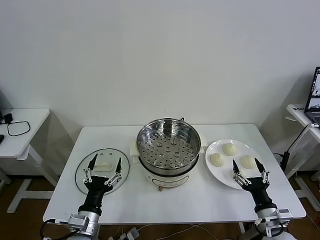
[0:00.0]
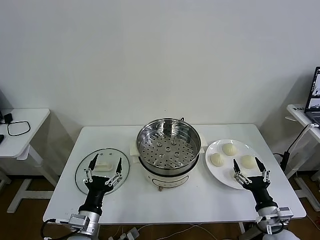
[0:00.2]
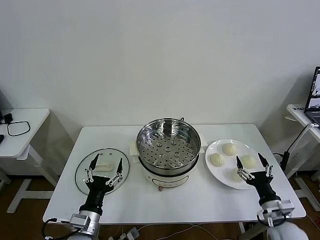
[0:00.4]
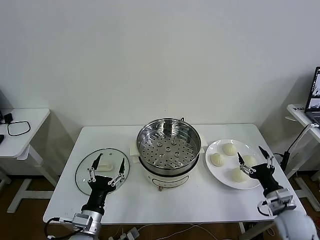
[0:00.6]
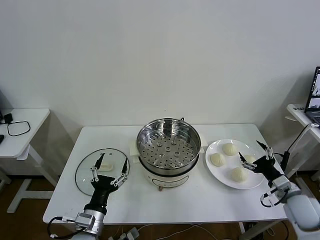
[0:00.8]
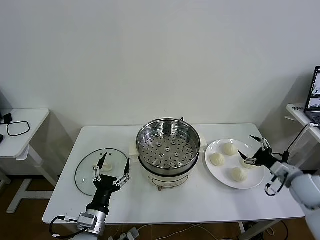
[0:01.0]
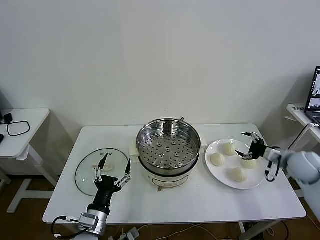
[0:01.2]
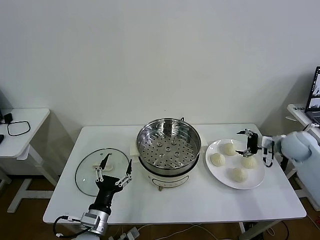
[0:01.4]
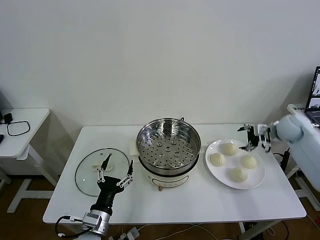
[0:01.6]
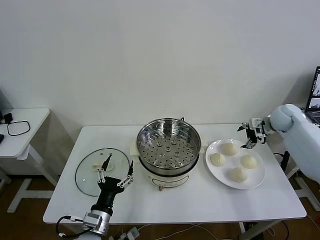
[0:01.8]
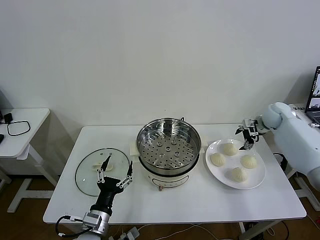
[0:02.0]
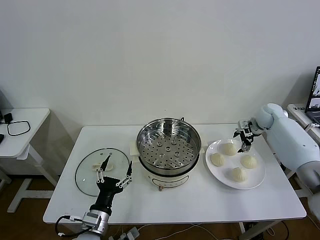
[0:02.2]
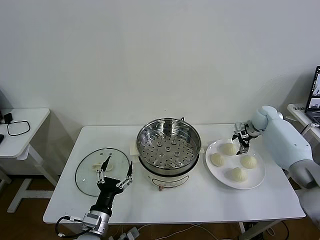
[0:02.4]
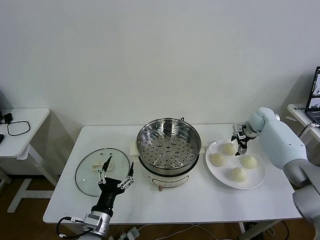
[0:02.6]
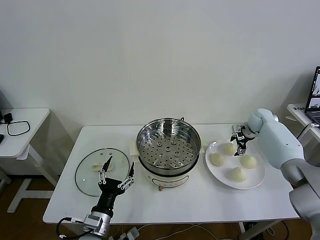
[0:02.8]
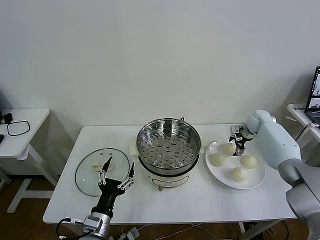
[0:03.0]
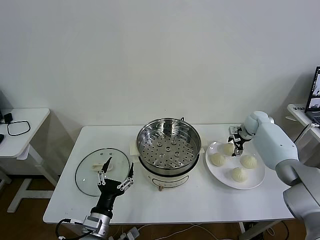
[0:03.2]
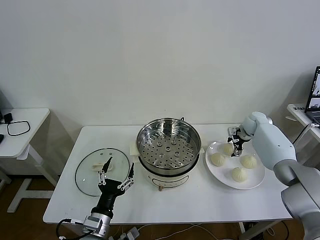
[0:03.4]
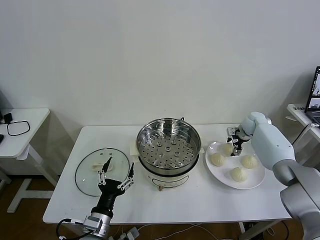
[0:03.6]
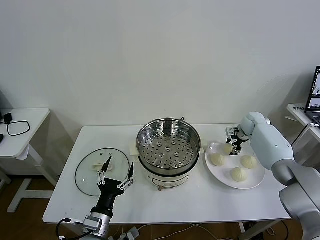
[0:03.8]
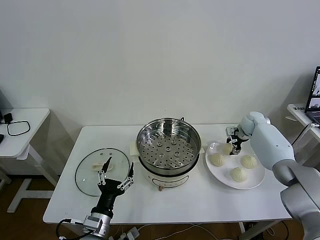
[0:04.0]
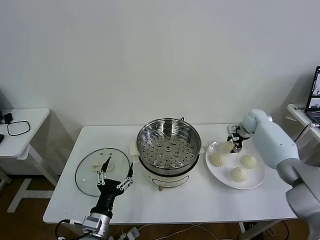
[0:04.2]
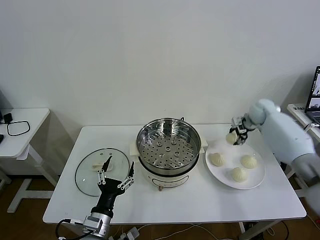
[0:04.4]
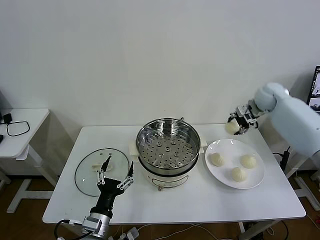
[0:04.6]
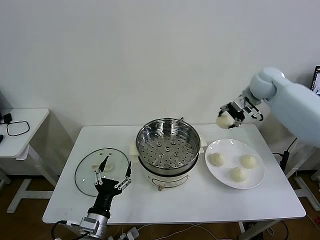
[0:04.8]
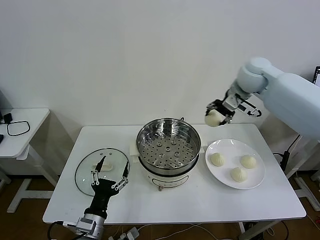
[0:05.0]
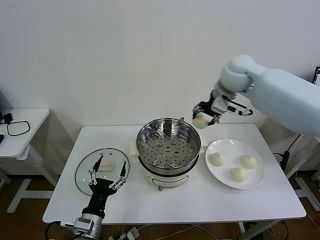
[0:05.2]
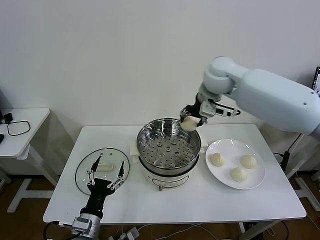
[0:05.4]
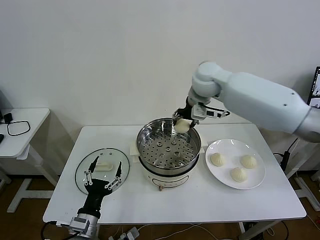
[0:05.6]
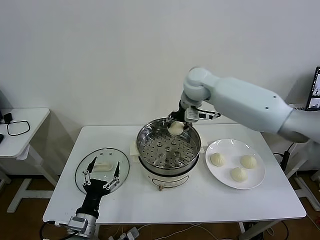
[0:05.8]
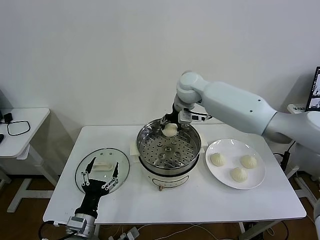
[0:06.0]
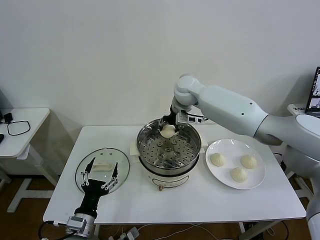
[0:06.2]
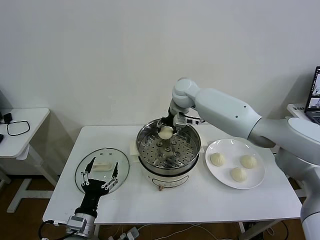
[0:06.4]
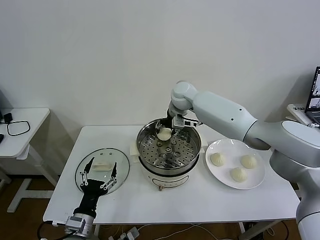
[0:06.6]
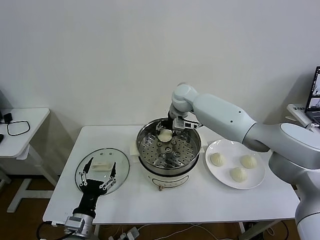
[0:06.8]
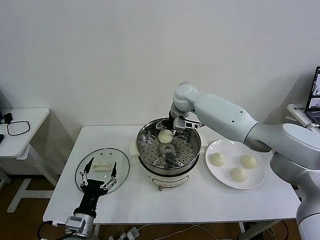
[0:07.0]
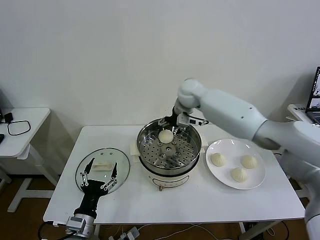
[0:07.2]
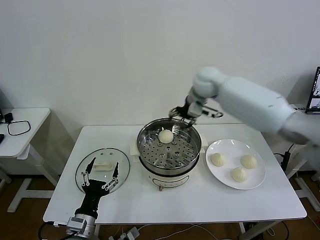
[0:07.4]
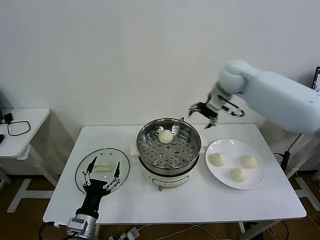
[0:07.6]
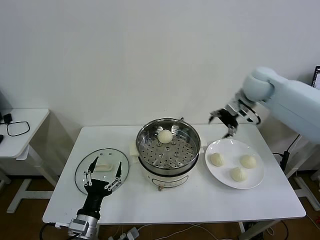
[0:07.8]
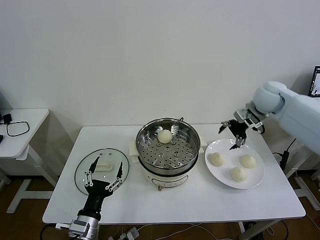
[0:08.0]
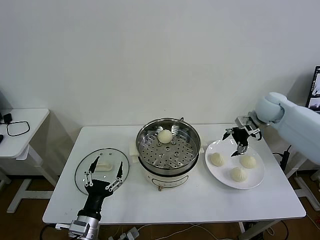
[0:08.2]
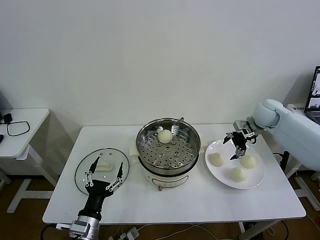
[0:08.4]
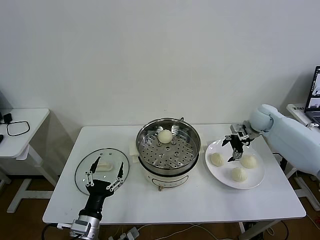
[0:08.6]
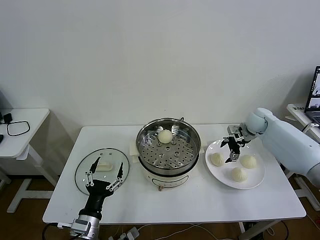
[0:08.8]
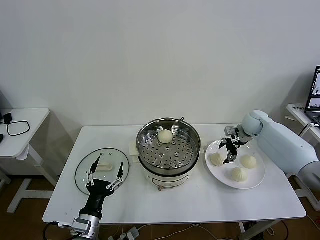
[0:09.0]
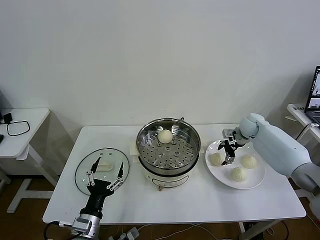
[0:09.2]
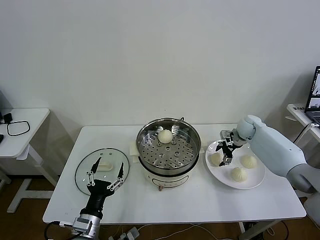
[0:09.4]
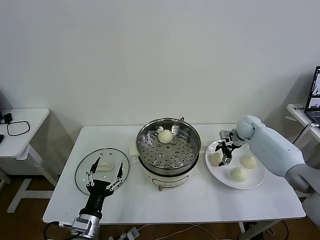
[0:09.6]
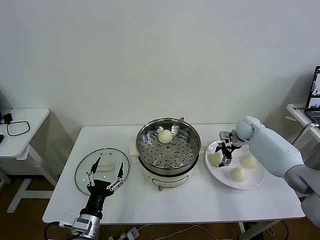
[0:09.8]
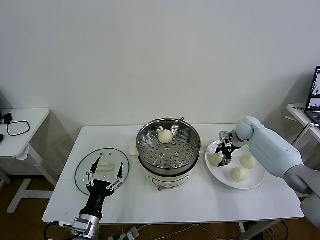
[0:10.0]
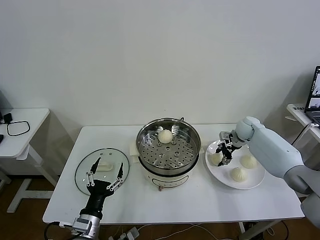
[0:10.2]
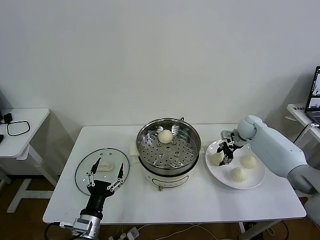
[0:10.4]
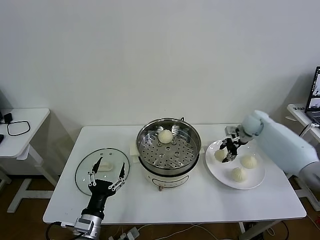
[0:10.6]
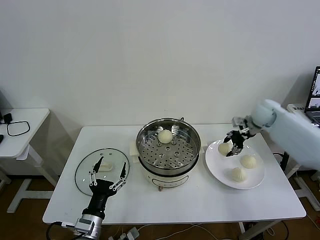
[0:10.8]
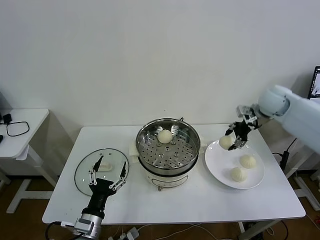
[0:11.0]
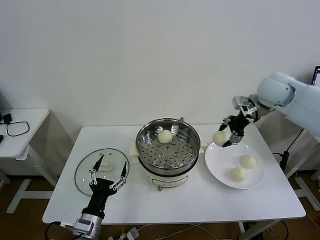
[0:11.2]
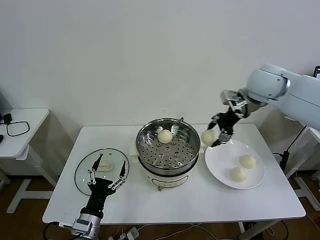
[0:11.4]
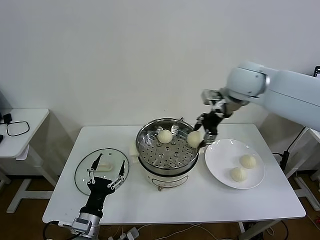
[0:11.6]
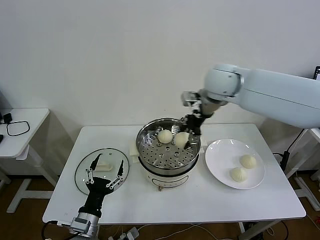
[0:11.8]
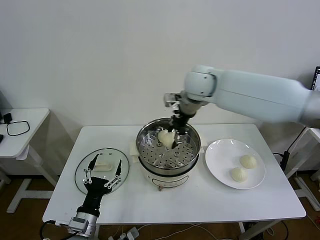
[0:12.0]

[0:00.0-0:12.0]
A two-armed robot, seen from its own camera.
Task of the whole recording: take steamed baozi put them in steamer then cover it.
Step, 0.0 to 3.8 s: Grasp the baozi in the plate with right gripper.
Step, 4.0 to 7.0 s: Place the baozi on the steamer with right gripper.
Step, 7.2 to 10.0 s: Grasp the baozi in the plate with right gripper.
1.6 to 3.0 s: The right gripper goes approximately 10 cm downward and forward.
3.0 to 4.4 s: The right gripper shifts some 10 cm upward, and closes.
4.4 to 6.0 s: The right gripper moves to the left, approximately 30 cm.
6.0 to 7.6 s: The right gripper is displaced to the right by about 15 cm, and opens its fingers.
7.6 to 9.0 s: The right gripper moves downward and to the right, about 25 cm.
9.0 to 10.4 s: The right gripper closes up.
10.4 to 12.0 s: The right gripper travels to the left and upward by roughly 35 cm.

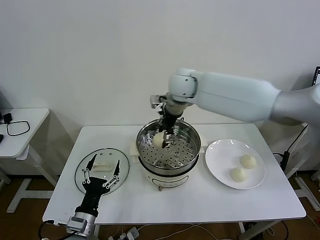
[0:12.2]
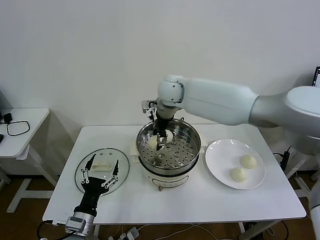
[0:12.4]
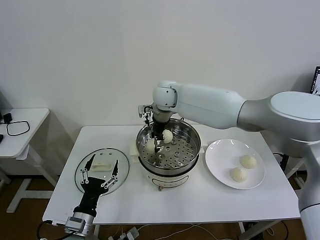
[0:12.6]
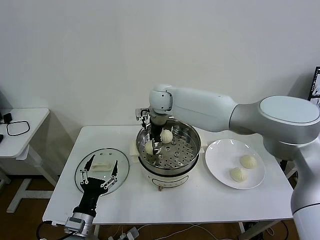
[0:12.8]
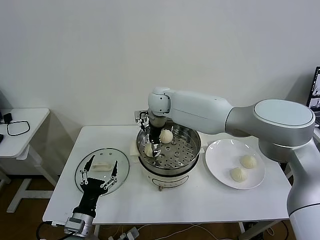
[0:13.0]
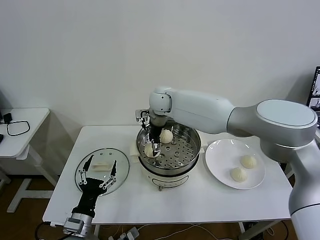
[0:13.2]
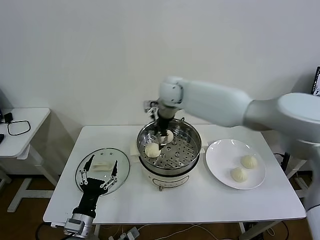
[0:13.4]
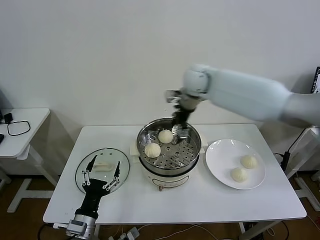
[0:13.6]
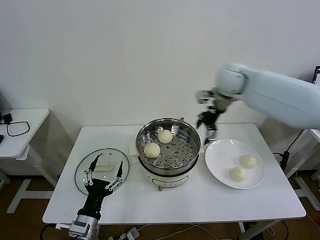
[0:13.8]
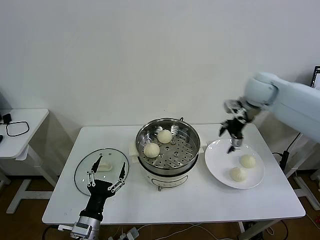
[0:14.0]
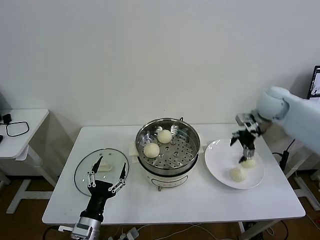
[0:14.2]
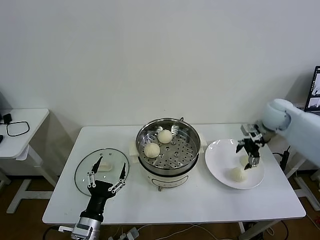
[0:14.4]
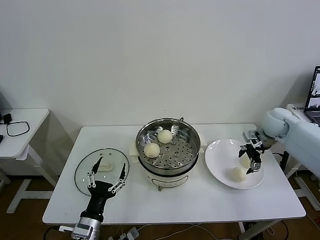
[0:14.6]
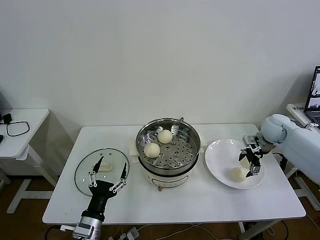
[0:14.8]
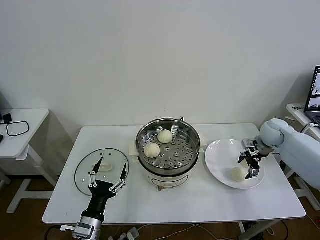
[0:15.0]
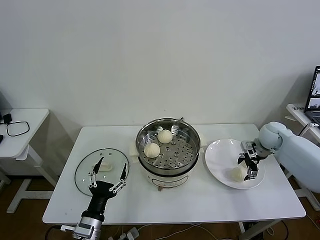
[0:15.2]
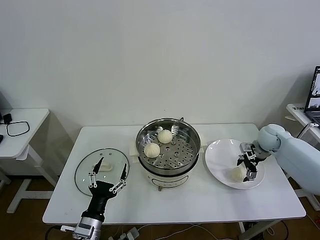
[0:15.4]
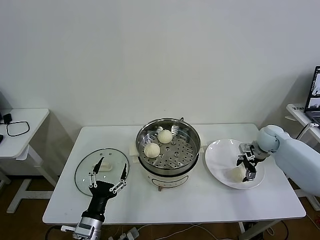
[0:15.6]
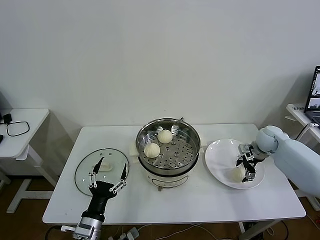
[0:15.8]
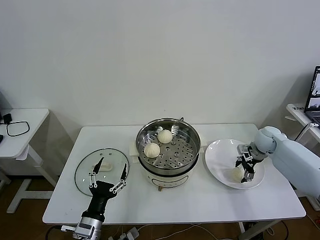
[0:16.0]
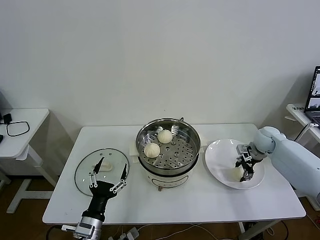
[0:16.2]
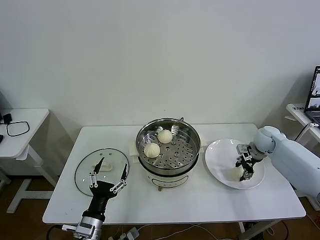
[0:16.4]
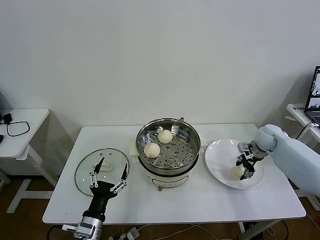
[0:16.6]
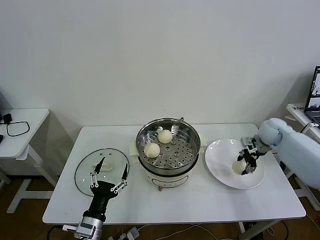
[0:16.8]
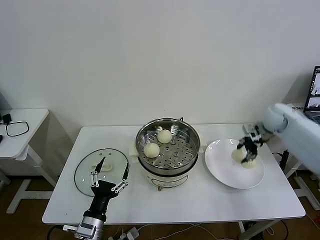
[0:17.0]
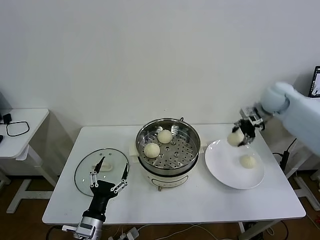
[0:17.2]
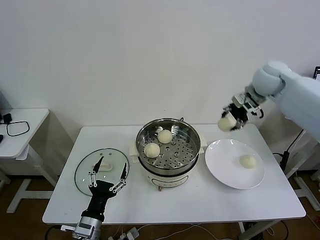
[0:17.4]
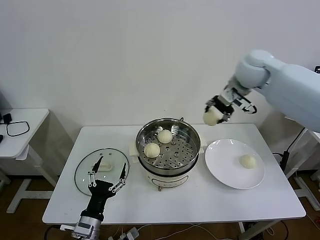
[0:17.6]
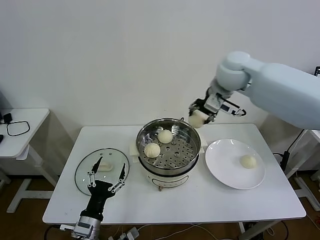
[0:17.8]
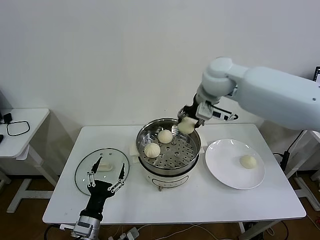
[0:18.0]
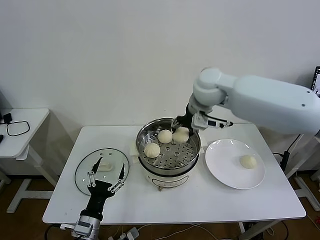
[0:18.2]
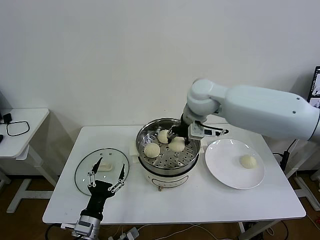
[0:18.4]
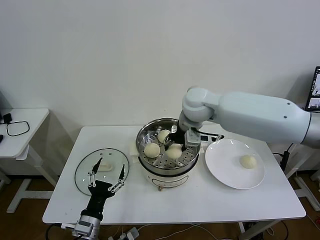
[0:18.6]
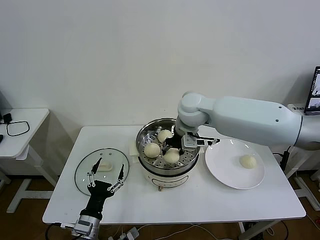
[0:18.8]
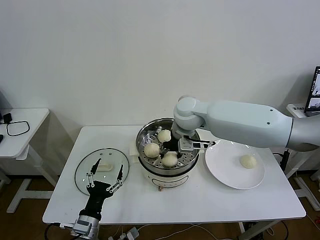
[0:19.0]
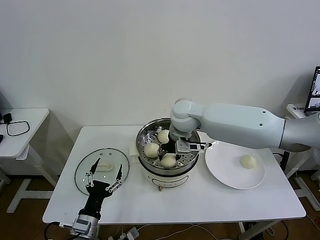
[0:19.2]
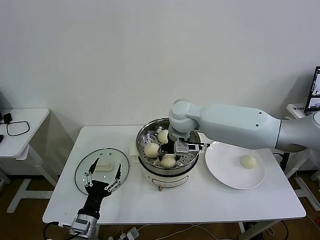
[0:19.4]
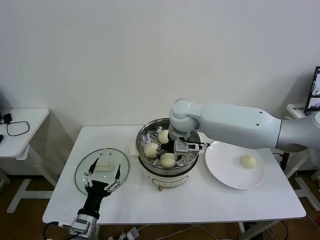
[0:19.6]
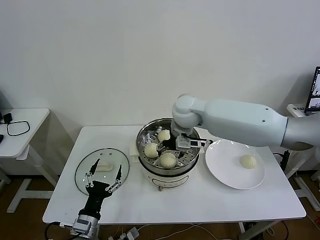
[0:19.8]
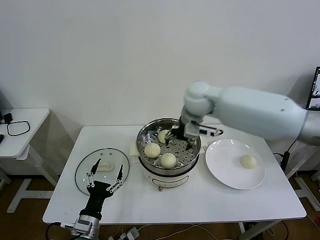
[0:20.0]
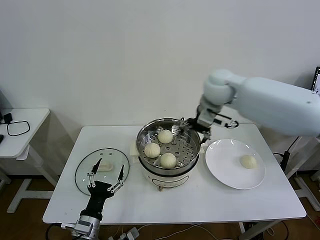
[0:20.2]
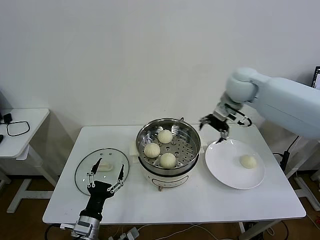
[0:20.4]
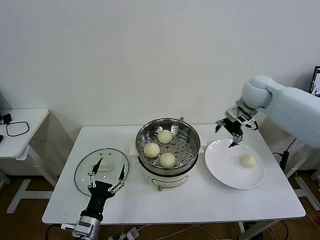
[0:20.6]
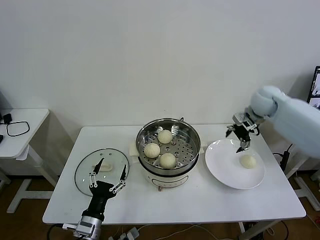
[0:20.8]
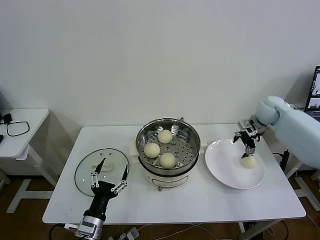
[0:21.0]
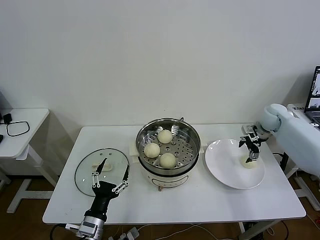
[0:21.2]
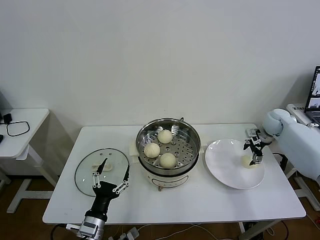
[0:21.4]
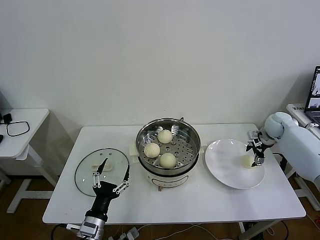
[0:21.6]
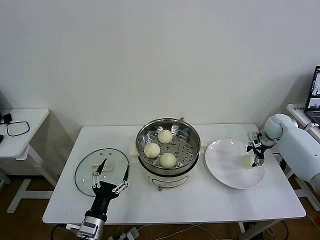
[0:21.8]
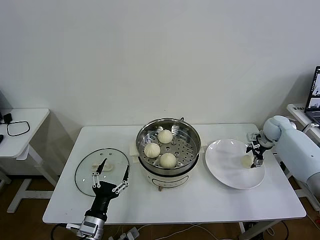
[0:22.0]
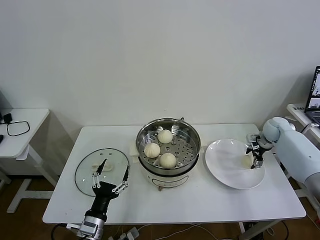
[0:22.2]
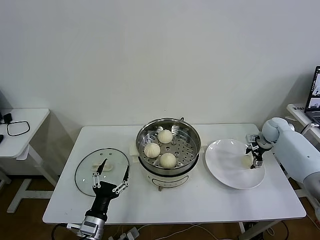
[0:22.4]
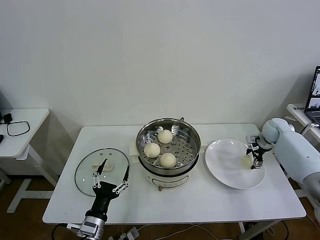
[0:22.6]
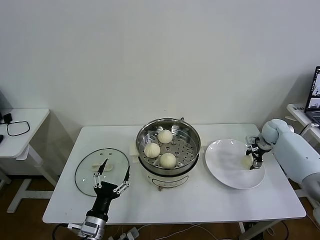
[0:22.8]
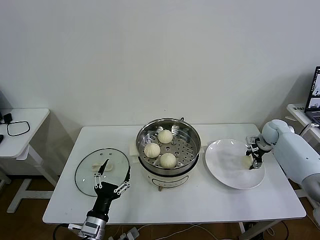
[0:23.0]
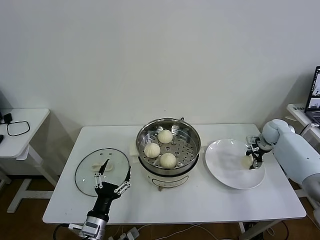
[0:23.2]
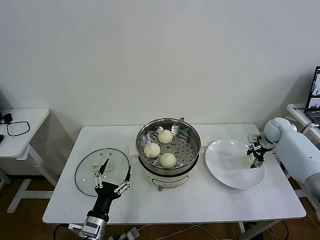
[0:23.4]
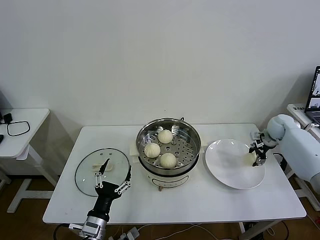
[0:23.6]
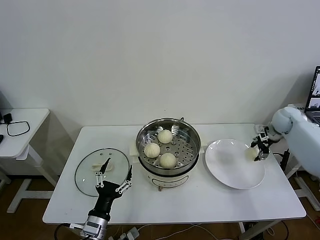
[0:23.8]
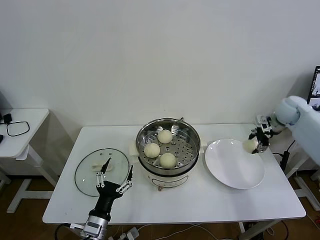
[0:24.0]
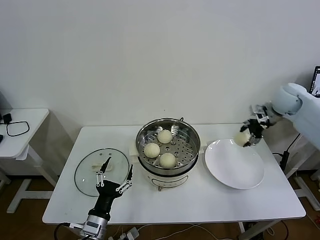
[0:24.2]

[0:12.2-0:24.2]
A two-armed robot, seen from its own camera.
Task of the whole recording: take steamed baozi put them in steamer then cover it.
Step, 13.4 to 16.2 s: Grasp the baozi in the plate with right gripper.
Step, 16.4 to 19.6 s: Place the baozi on the steamer with right gripper.
Step, 19.8 to 23.0 s: Grasp the baozi in the plate with right gripper.
12.2 to 13.8 s: The right gripper travels to the right by approximately 20 cm, and opens its fingers.
13.8 to 15.2 s: The right gripper heads downward and to the right, covering approximately 25 cm.
15.2 to 16.6 s: The right gripper closes.
16.6 to 18.2 s: The right gripper shifts approximately 35 cm to the left and upward.
18.2 to 19.8 s: The right gripper travels downward by some 5 cm, and opens its fingers.
19.8 to 21.2 s: The right gripper is displaced to the right by roughly 35 cm.
21.2 to 22.6 s: The right gripper goes roughly 5 cm downward.
22.6 to 24.2 s: The right gripper travels upward by some 20 cm, and closes.
